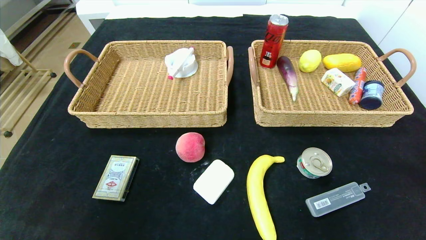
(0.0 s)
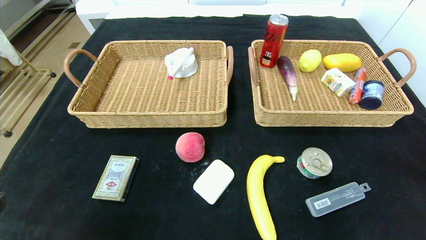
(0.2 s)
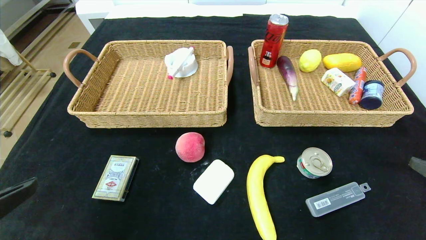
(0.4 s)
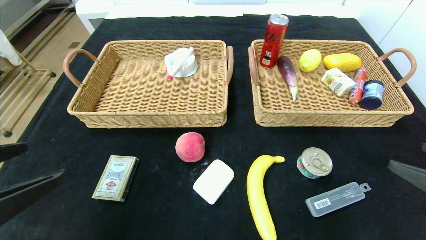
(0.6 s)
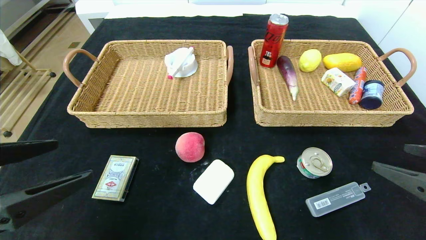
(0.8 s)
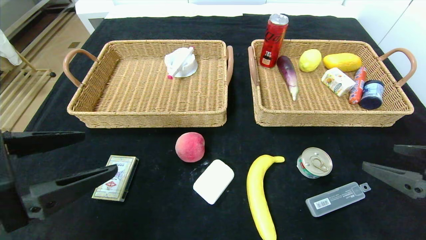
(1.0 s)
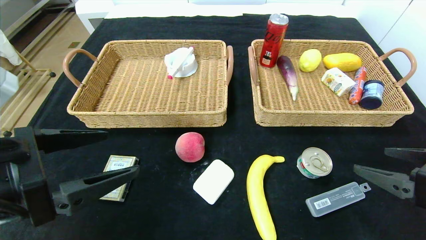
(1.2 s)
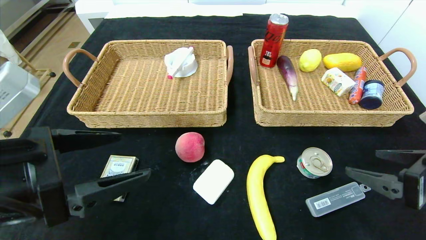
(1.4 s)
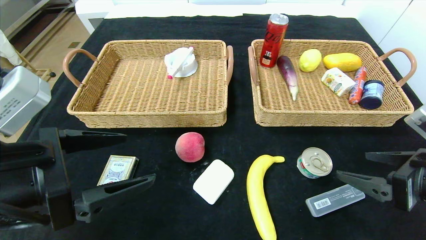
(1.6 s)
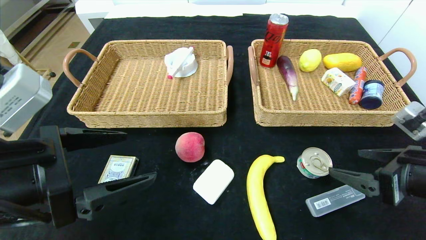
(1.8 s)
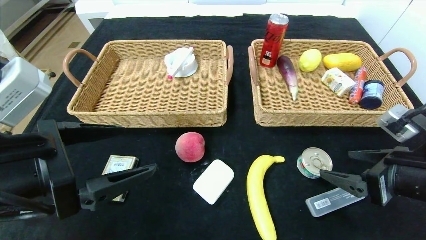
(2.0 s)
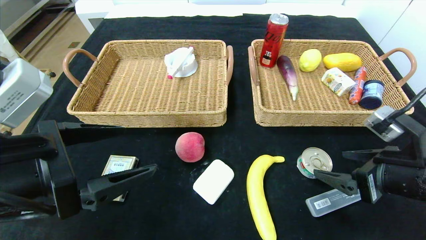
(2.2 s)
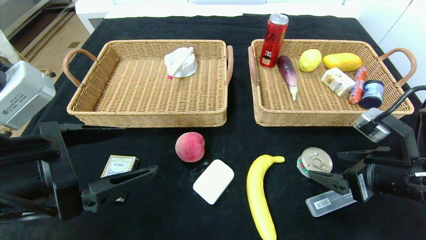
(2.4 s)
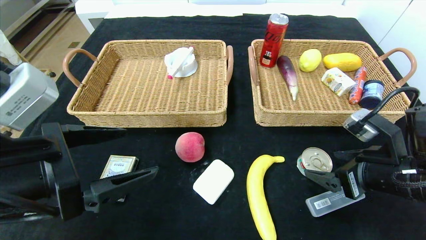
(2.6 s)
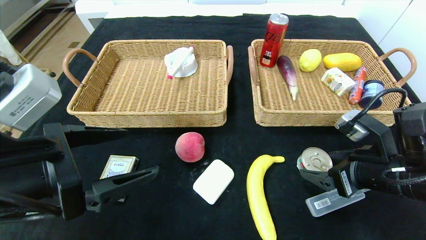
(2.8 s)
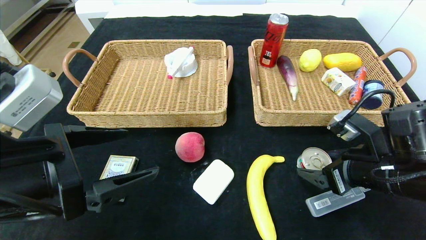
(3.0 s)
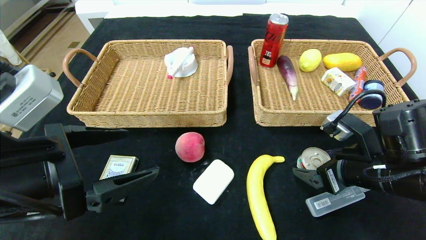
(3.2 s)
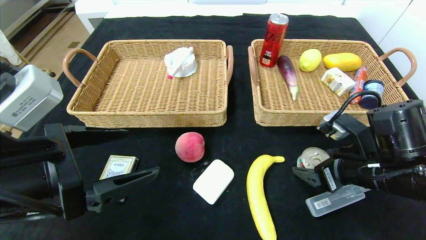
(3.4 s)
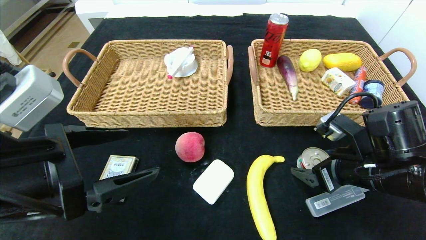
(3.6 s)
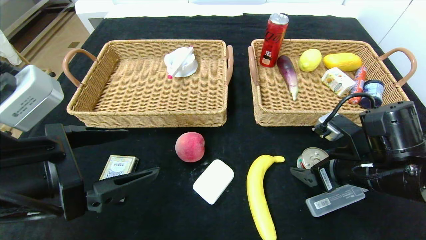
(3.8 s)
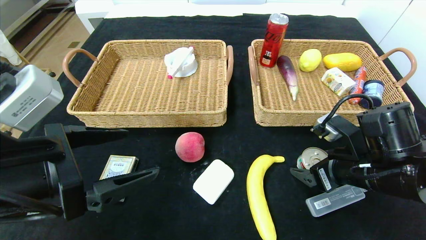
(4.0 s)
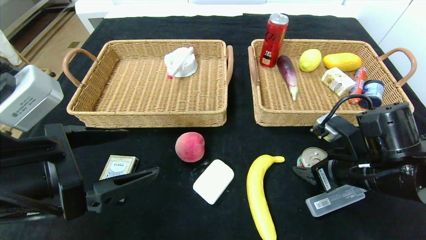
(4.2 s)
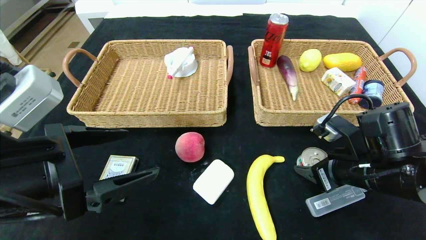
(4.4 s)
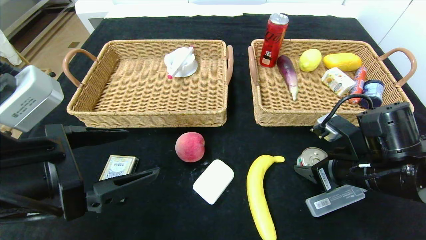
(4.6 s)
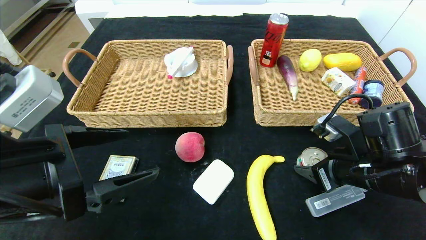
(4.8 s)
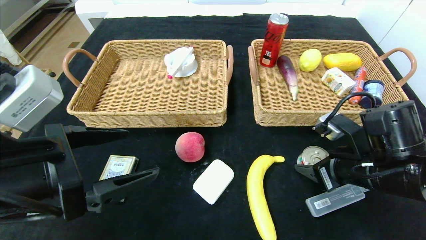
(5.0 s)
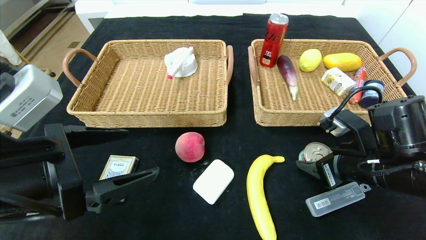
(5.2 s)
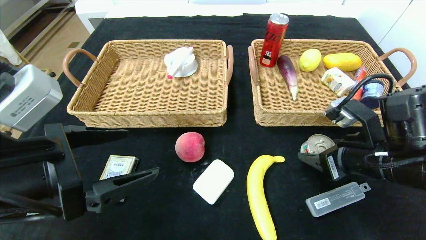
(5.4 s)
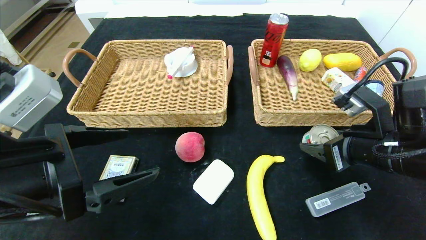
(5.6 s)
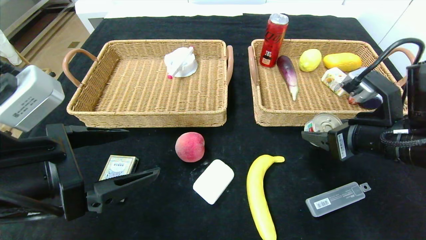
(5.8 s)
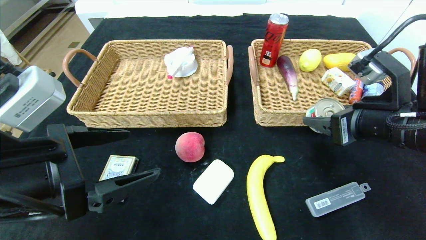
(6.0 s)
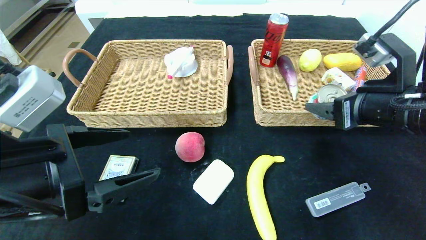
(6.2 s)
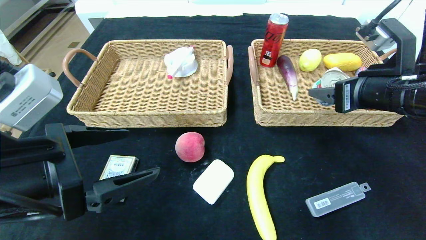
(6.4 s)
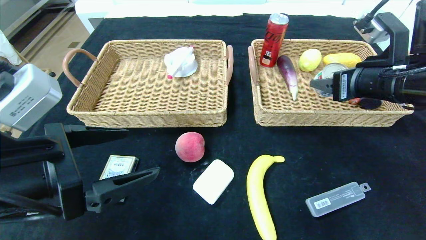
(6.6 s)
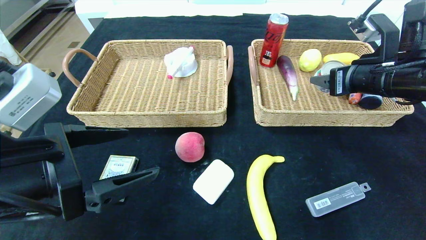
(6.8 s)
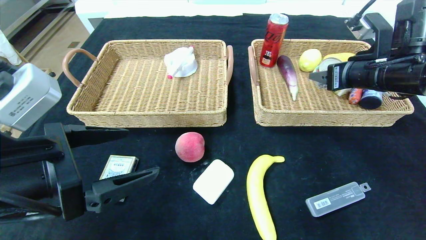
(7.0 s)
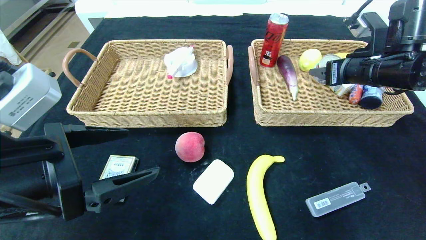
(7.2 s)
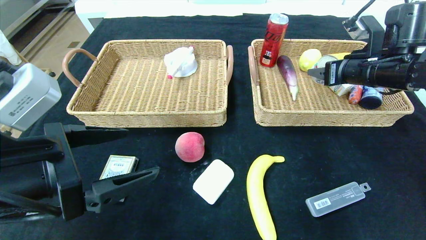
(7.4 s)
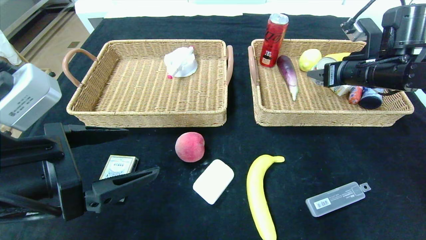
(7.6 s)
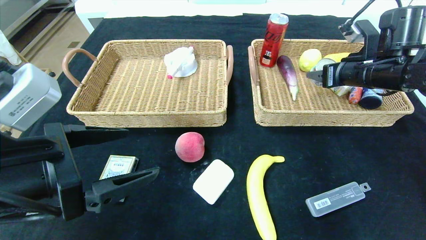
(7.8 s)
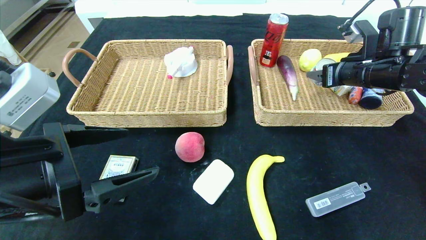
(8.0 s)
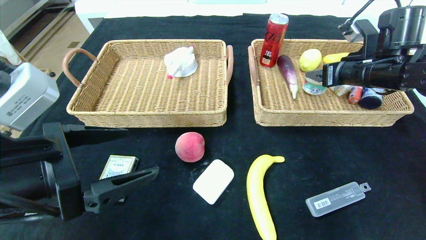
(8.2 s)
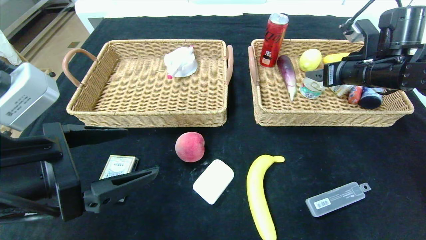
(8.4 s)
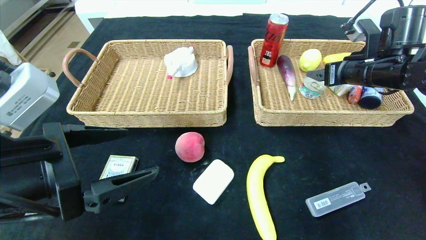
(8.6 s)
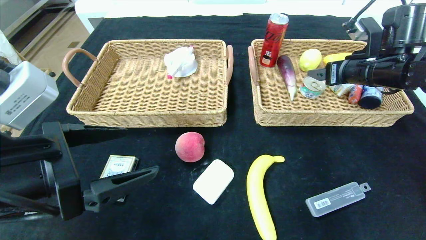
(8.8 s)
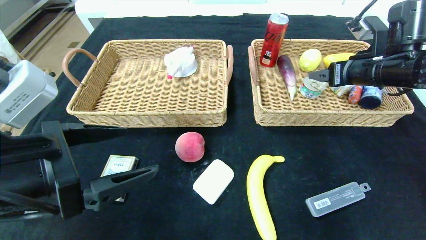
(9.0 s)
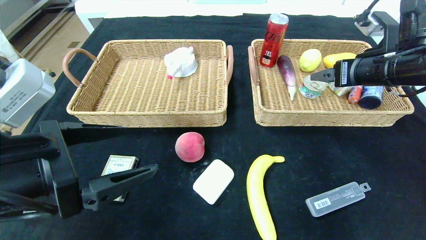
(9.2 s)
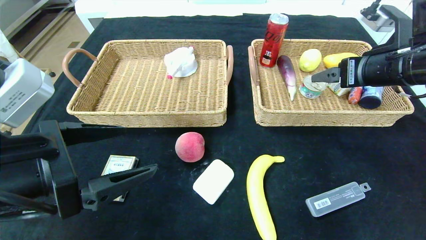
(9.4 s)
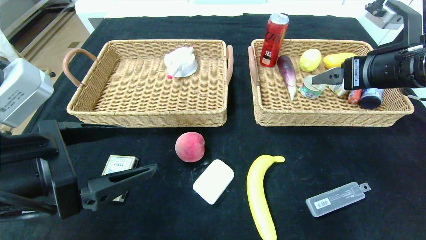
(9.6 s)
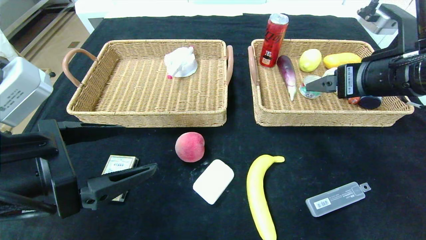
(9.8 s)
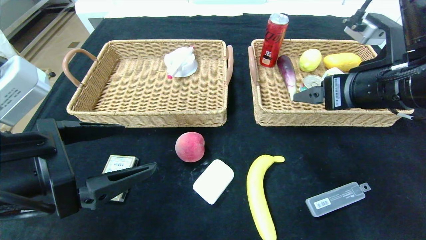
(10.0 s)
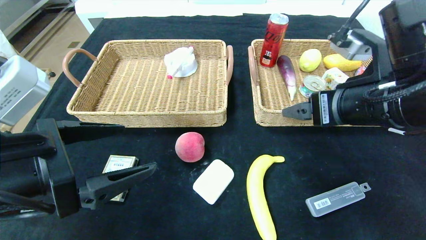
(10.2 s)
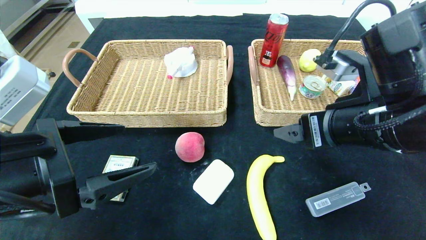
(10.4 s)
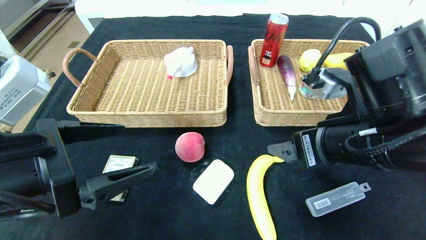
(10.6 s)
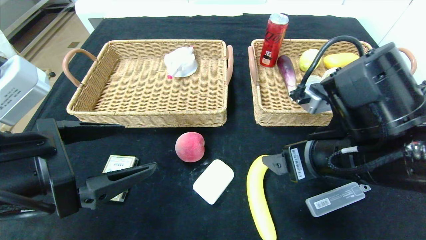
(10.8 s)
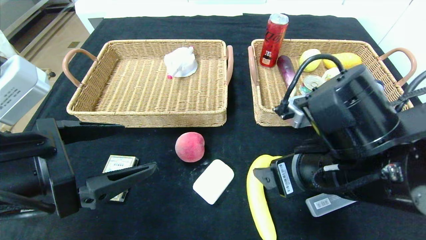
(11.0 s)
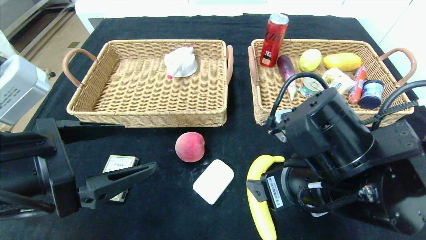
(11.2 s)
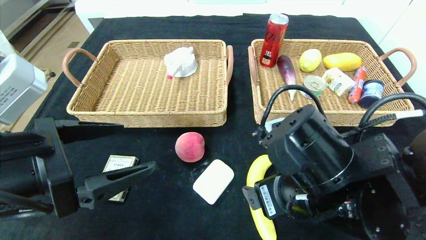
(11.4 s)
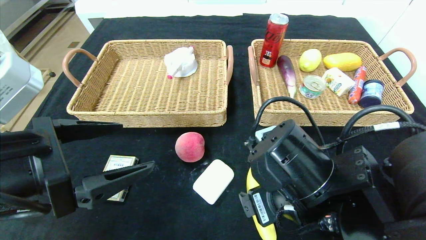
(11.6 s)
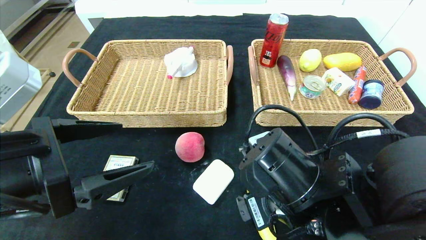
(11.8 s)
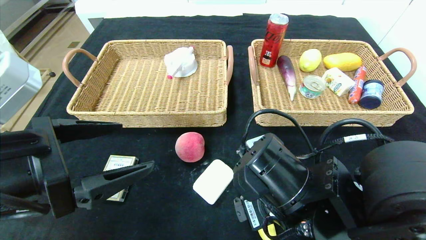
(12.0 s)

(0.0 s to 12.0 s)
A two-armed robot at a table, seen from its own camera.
Step, 0.0 s - 8.2 s: Grasp the can and put it in the right basket.
0.0 s - 1.6 s: The right gripper moves forward, some 15 cm. Meanwhile the left gripper shifts approximately 15 cm forward and to the right.
1.6 s - 3.0 s: The right gripper is displaced forward and to the left by roughly 10 cm.
3.0 s - 4.4 s: The right gripper closes its fingers.
4.4 s - 6.0 s: The right gripper moves upward, some 10 cm.
6.0 s - 7.6 s: The right gripper shifts about 15 cm forward.
7.6 s - 9.0 s: The right gripper opens its fingers.
9.0 s - 10.4 s: The right gripper shifts approximately 20 cm backward and to the left.
10.4 s - 12.0 s: The right gripper moves downward and to the left, some 15 cm.

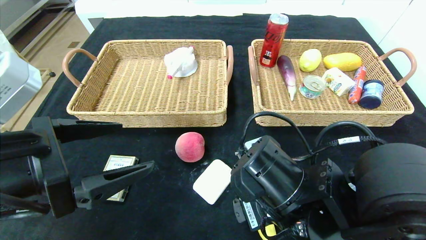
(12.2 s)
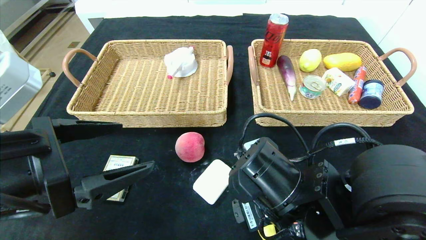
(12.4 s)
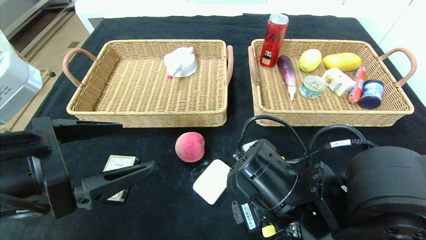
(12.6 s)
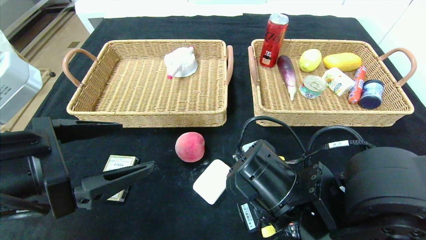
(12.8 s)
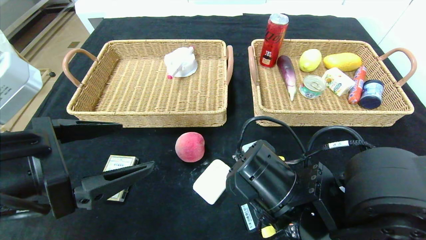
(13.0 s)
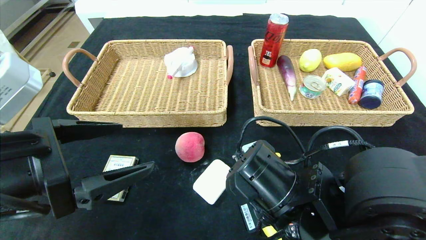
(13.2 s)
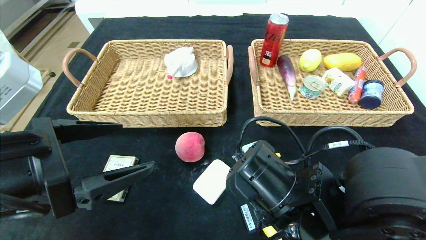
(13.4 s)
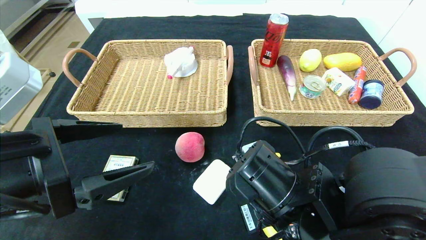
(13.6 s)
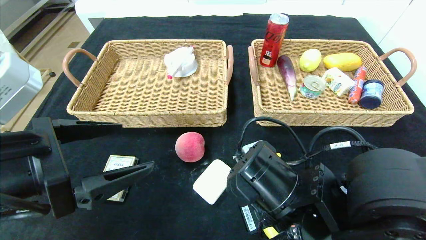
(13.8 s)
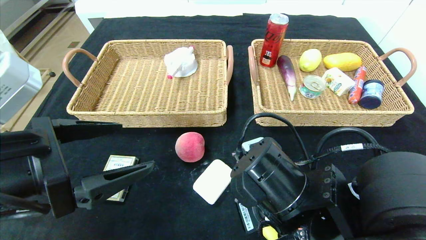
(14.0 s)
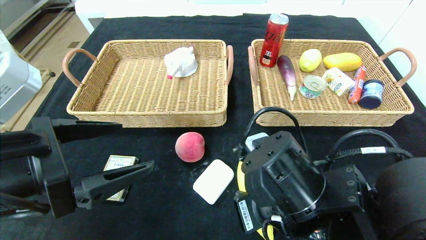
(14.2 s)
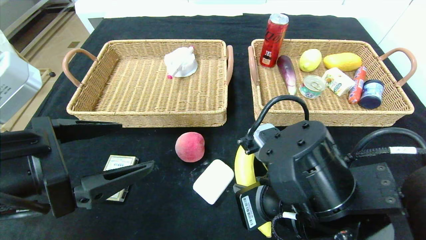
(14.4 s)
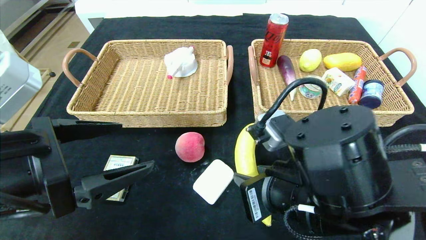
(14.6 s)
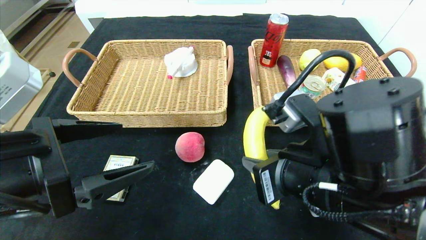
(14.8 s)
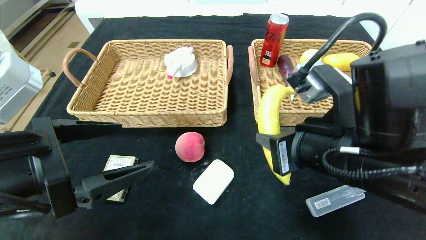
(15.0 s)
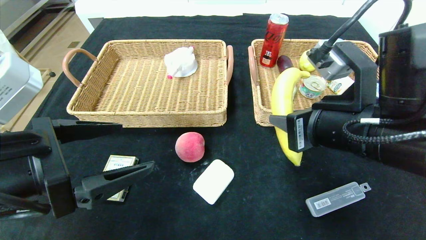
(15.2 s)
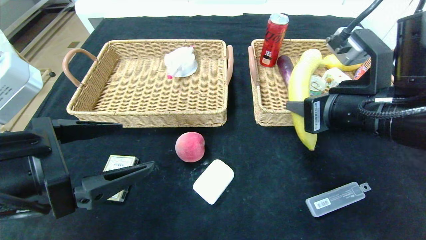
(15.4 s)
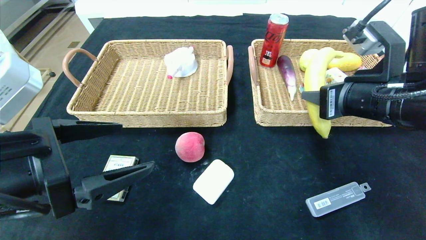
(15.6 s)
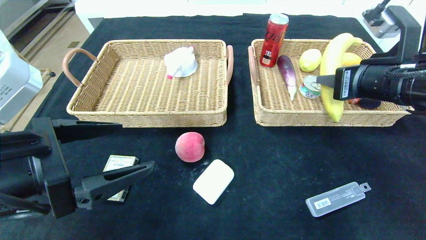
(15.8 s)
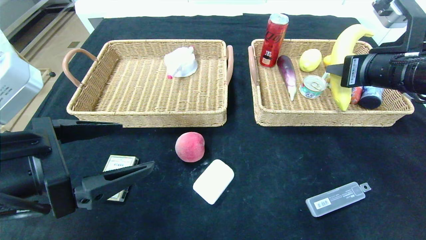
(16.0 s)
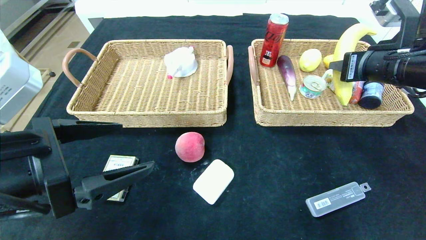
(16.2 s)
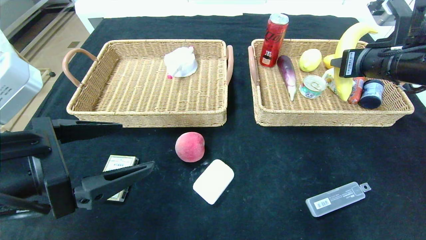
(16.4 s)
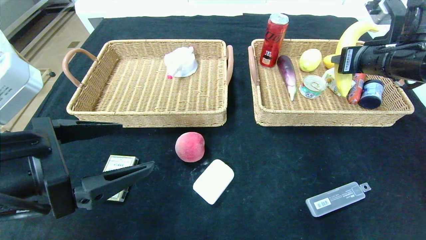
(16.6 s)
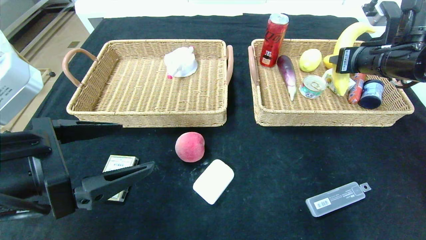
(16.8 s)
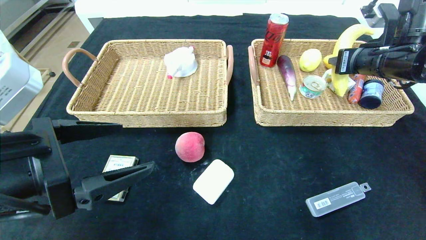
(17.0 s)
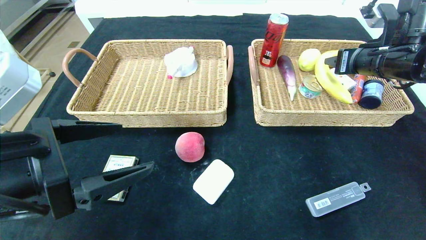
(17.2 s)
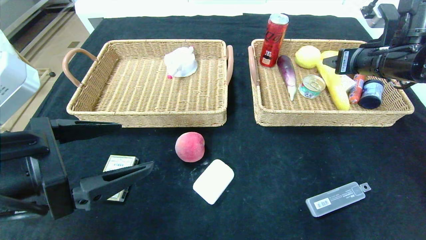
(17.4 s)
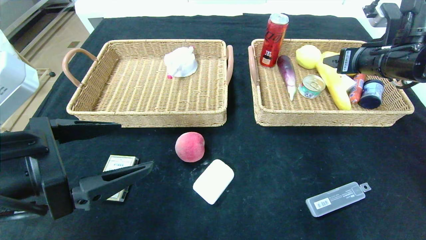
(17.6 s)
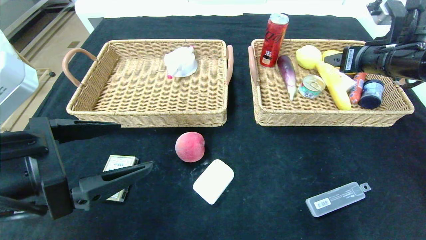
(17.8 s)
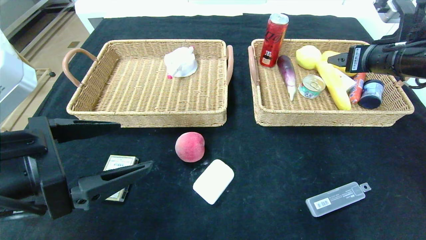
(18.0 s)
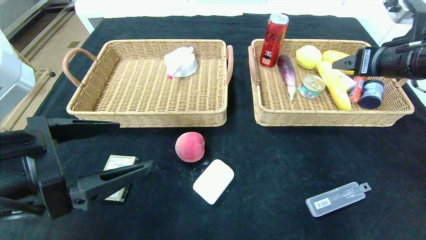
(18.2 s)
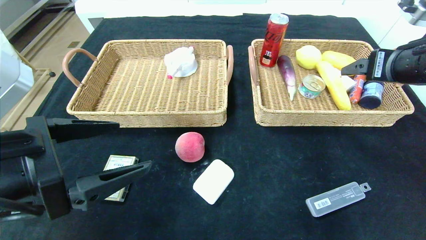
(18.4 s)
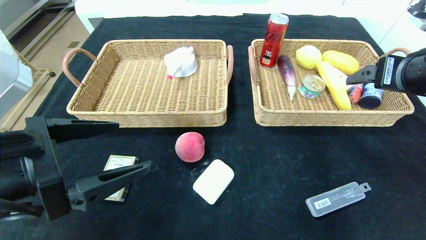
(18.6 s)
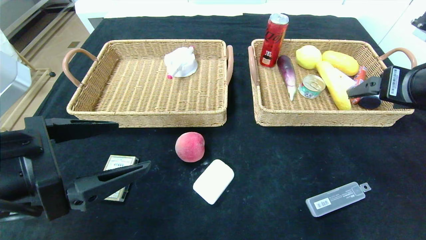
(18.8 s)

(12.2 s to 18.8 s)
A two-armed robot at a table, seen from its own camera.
Step, 12.2 s - 17.8 s: Grasp the banana and put it in the right basket.
12.2 s - 13.8 s: The right gripper closes up.
13.8 s - 15.4 s: The right gripper is displaced upward and to the right by about 15 cm.
15.4 s - 17.2 s: The right gripper shifts some 15 cm forward and to the right, and opens.
17.2 s - 18.8 s: The right gripper travels backward by approximately 10 cm, and opens up.
